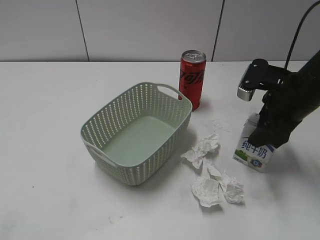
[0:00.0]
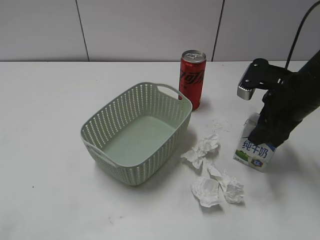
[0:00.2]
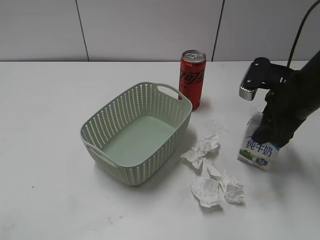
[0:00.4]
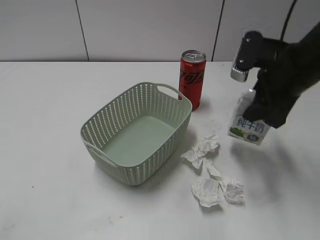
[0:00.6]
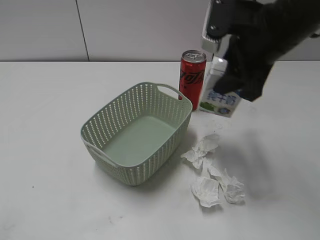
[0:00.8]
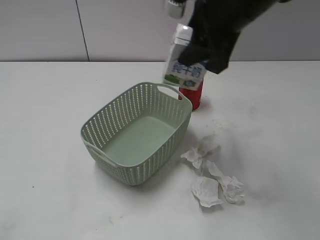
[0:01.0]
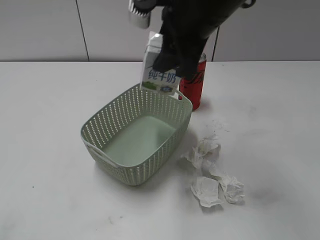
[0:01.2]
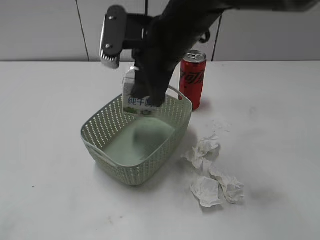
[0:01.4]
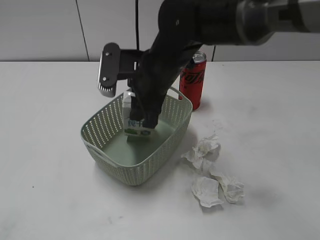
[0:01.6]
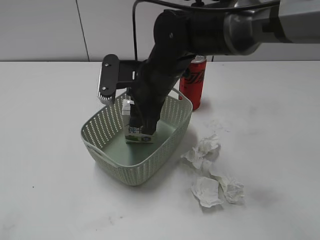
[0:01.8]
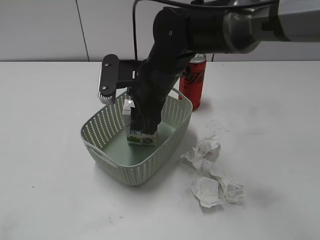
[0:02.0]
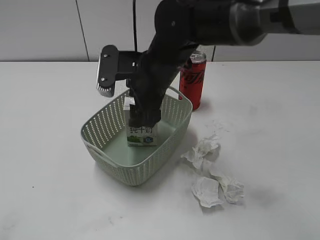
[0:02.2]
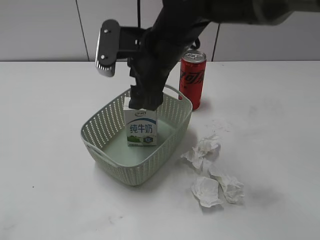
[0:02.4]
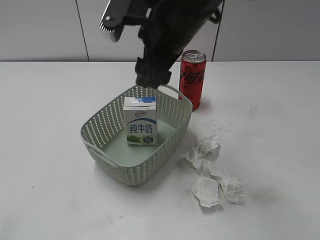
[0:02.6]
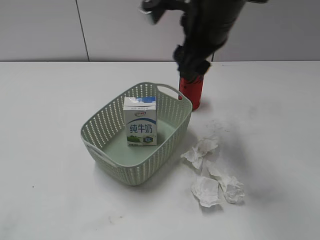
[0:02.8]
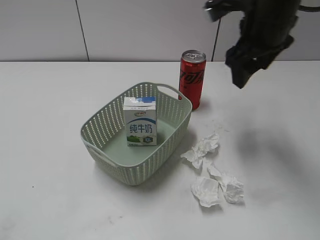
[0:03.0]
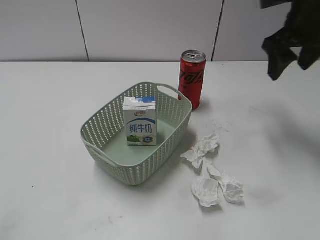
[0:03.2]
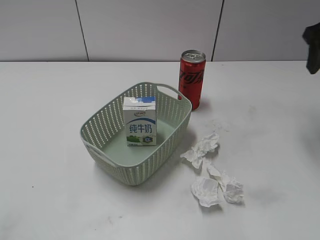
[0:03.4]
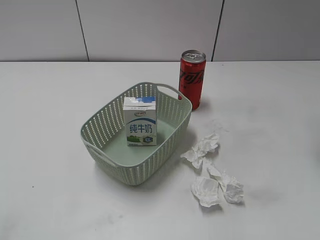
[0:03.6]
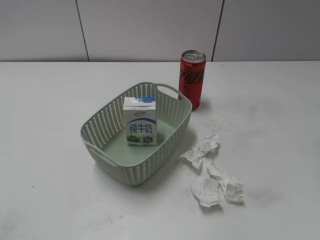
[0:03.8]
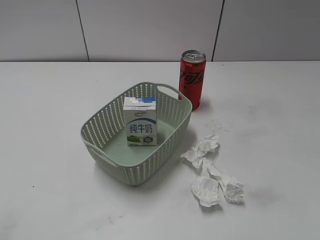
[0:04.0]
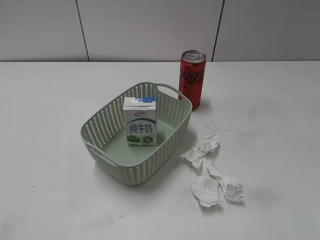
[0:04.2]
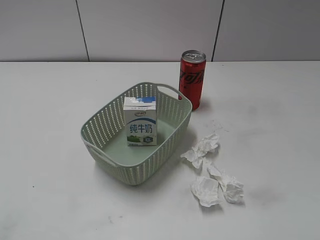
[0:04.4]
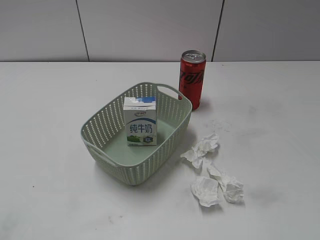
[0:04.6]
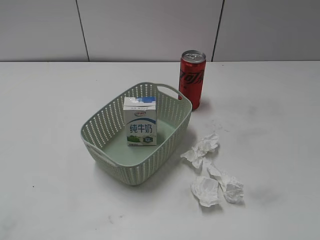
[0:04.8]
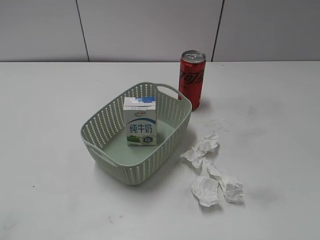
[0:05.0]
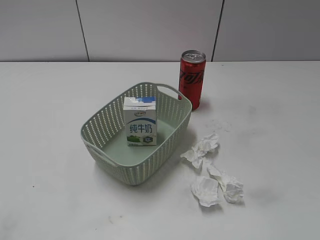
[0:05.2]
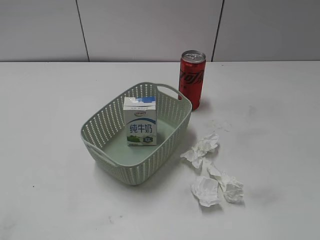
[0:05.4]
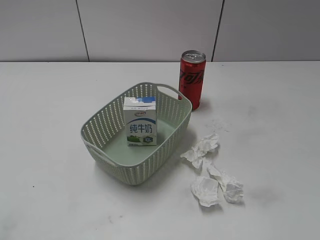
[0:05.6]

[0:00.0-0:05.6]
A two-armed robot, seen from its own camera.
Step, 0:00.2 to 0:02.6: Place the milk in the basket with right gripper.
0:00.0 to 0:01.4: The right gripper moves to the left, some 20 cm, and closes up.
0:01.4 to 0:02.8: The right gripper shifts some 5 cm to the right, travels downward and back again, approximately 10 cm each way, and opens its fingers.
0:02.8 to 0:04.2: The right gripper shifts some 30 cm to the right and backward.
